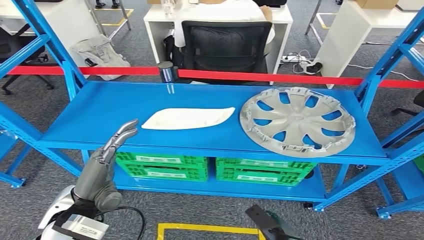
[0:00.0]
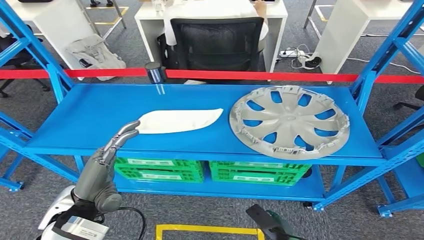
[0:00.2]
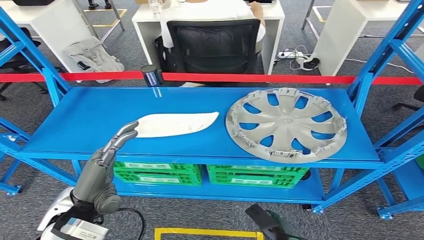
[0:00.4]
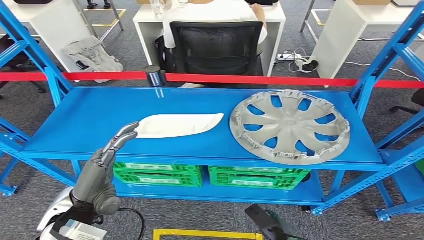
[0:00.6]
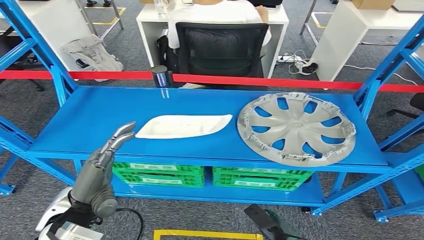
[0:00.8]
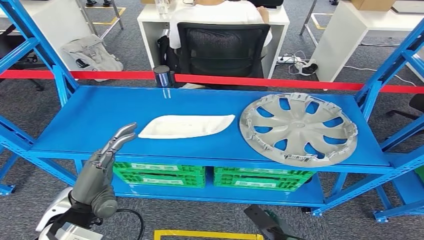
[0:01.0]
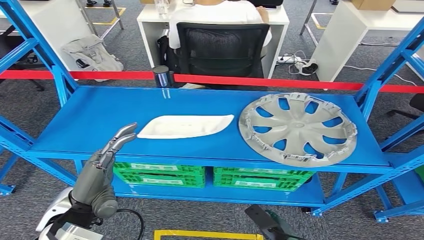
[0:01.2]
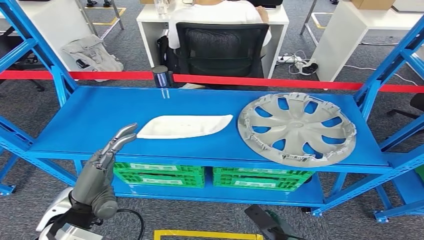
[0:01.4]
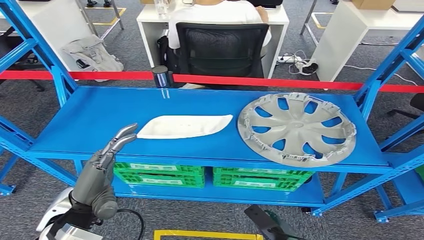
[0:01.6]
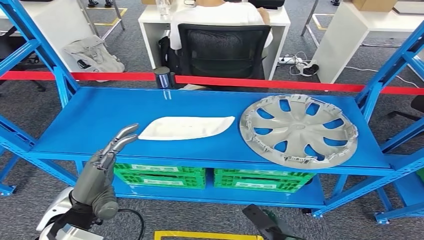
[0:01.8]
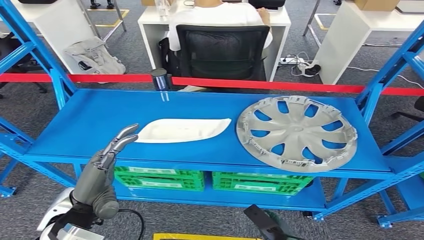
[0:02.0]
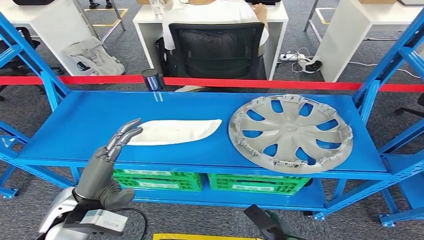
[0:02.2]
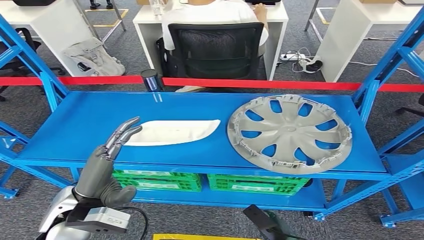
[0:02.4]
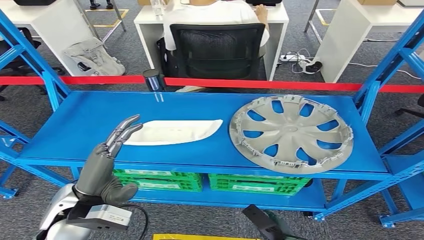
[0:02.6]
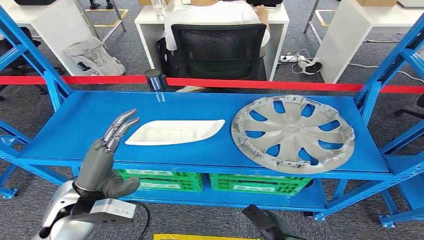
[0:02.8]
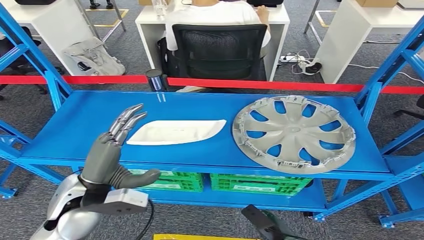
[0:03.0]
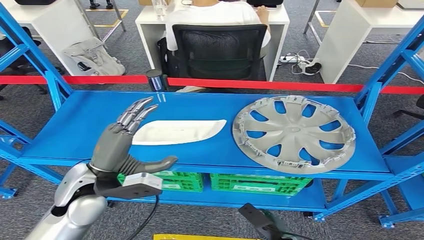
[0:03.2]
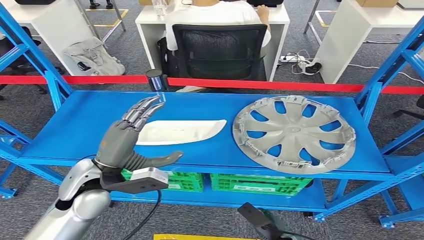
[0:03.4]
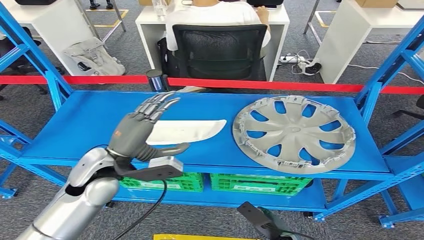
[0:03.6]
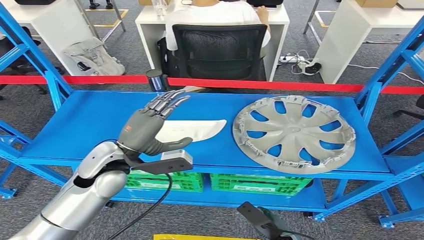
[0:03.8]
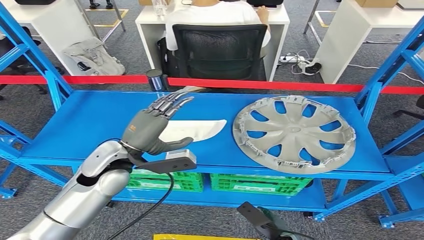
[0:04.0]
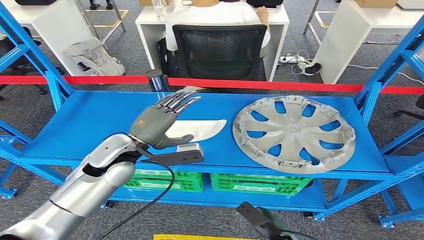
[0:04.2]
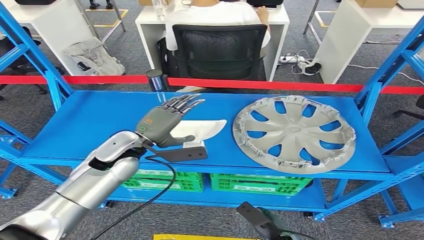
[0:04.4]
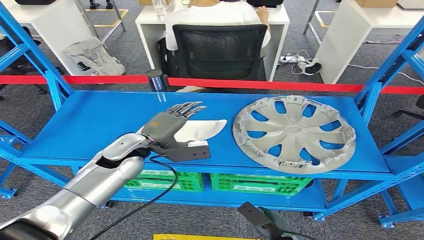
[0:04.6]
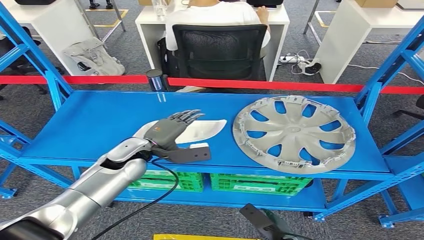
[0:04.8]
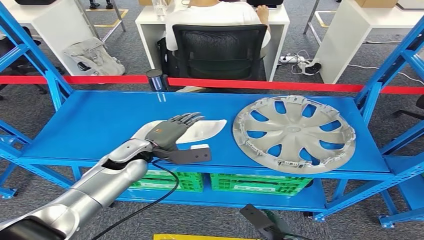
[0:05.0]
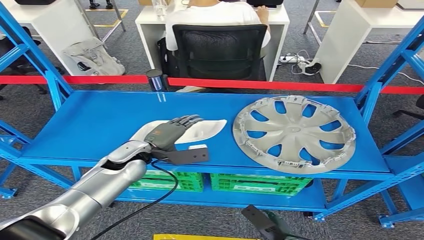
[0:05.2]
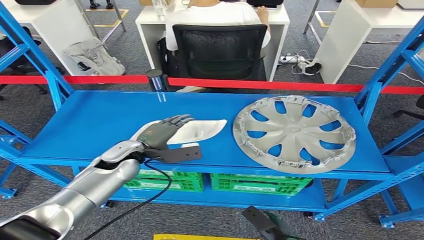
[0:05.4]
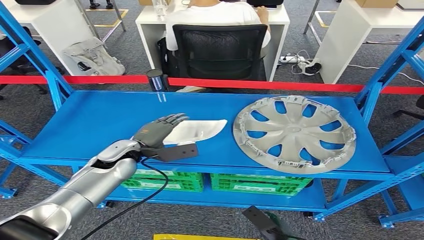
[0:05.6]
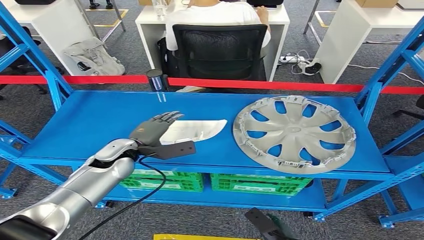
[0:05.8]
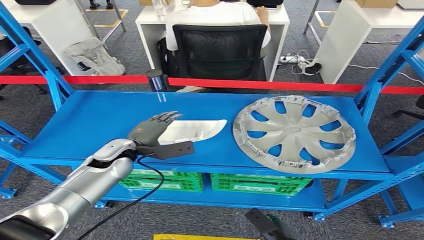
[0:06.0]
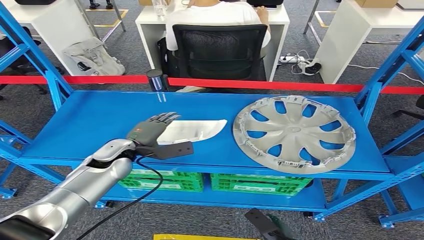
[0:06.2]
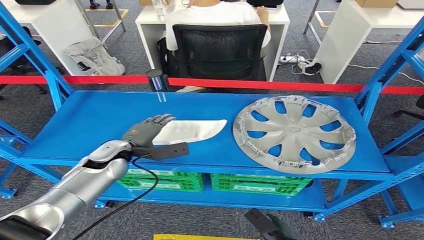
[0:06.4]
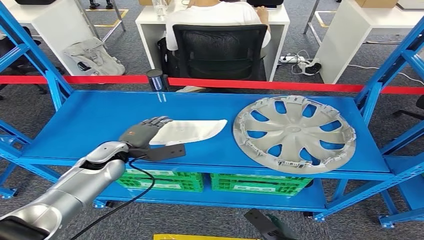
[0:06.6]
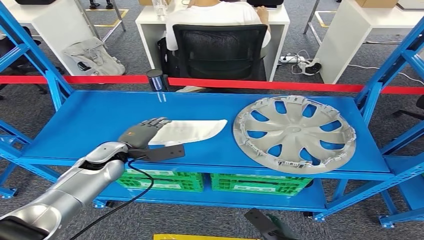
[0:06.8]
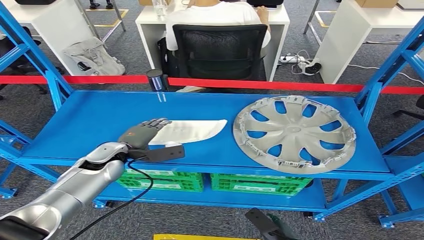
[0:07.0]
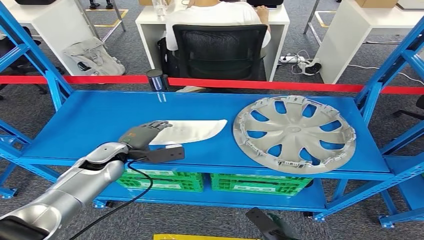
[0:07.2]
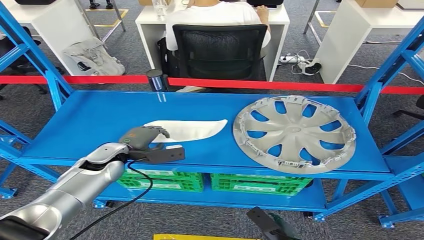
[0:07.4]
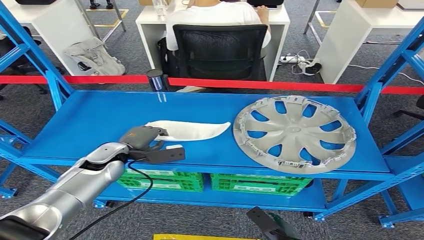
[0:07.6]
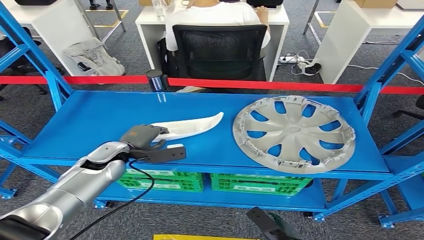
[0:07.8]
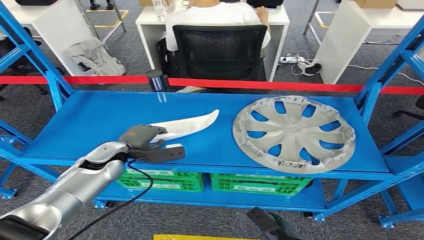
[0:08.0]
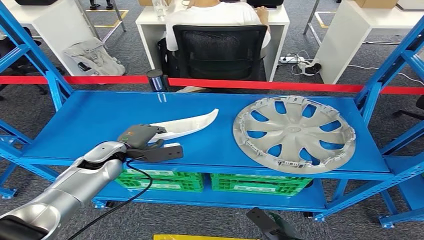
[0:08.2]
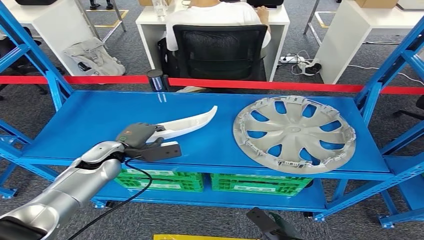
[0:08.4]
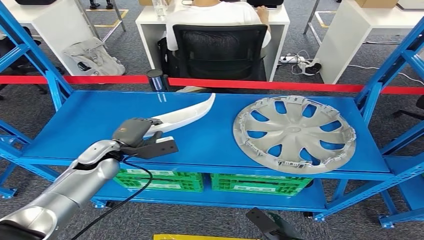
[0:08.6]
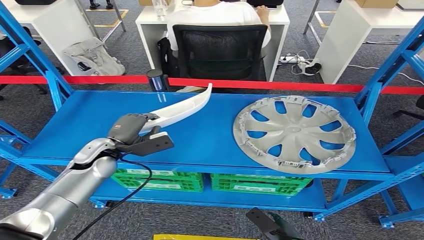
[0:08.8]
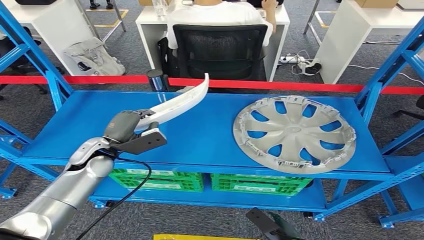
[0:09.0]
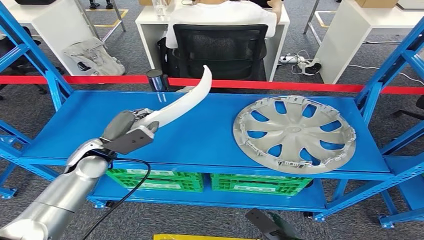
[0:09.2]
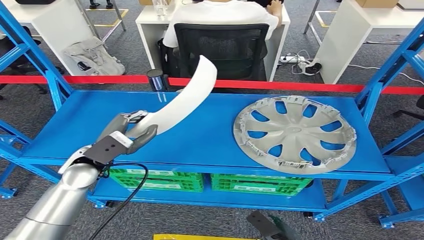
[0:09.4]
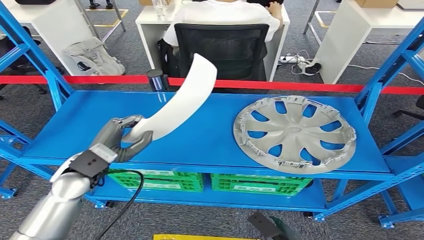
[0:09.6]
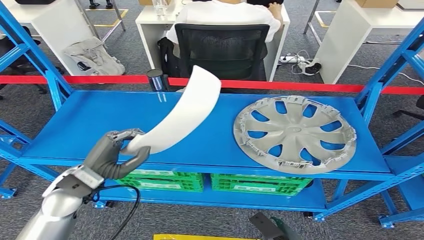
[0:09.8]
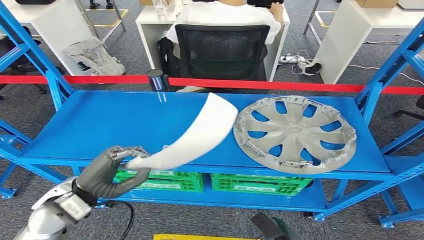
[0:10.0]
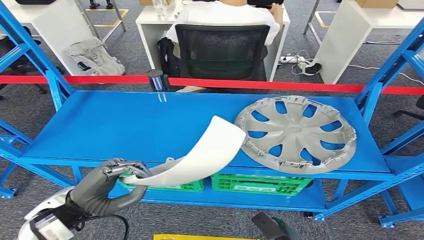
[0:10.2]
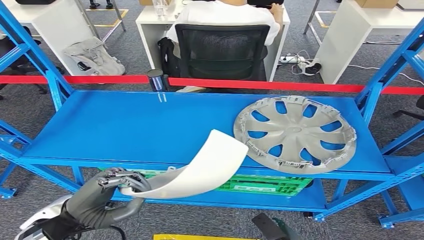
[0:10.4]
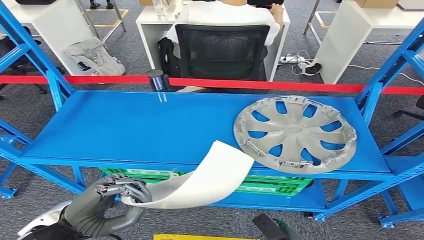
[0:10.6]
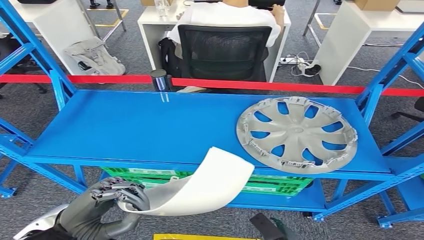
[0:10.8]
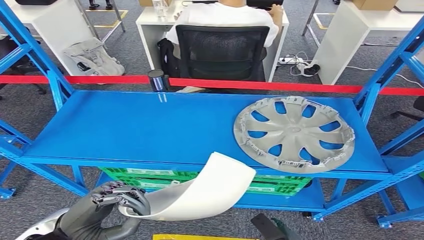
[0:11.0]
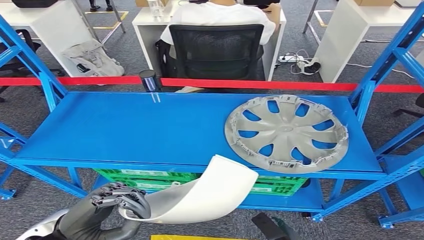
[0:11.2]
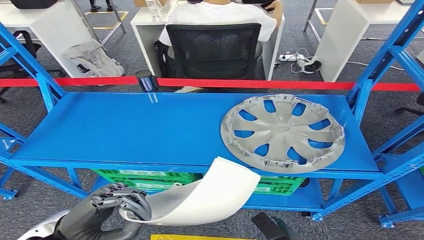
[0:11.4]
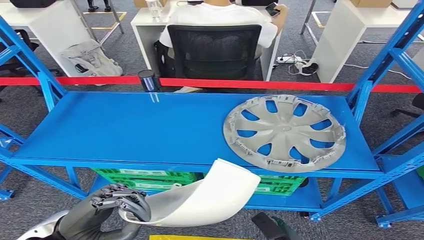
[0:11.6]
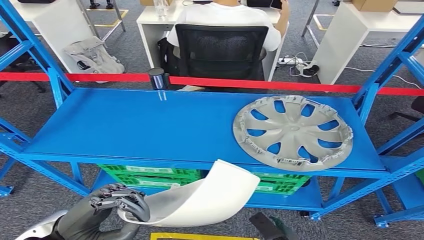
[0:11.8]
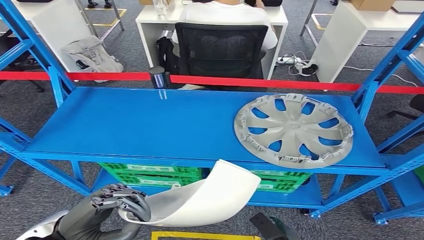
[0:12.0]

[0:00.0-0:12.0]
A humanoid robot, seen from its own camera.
Step, 0:00.0 to 0:09.6: Take small components from the rack.
0:03.0 to 0:04.4: The left hand goes about 10 cm forward.
0:04.4 to 0:06.0: The left hand moves downward, approximately 5 cm.
0:06.0 to 0:07.6: The hands move only a little.
0:09.0 to 0:10.4: The left hand is displaced backward by about 15 cm.

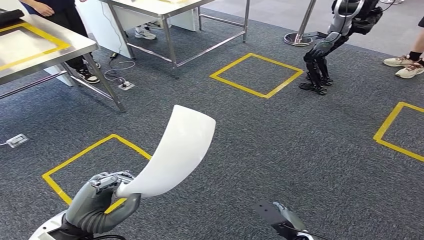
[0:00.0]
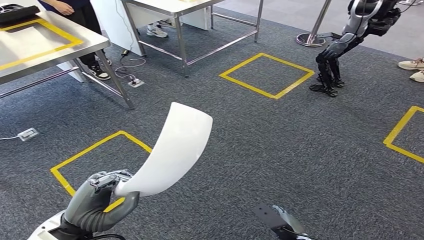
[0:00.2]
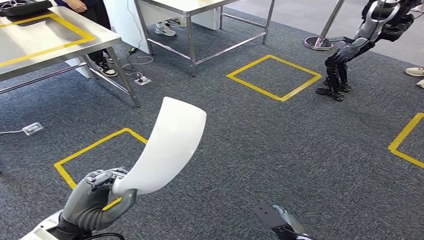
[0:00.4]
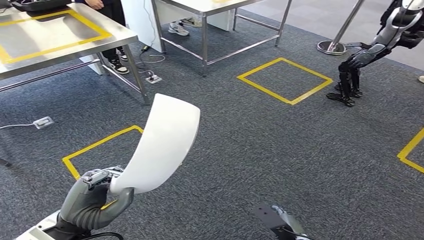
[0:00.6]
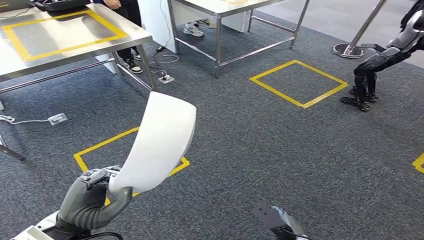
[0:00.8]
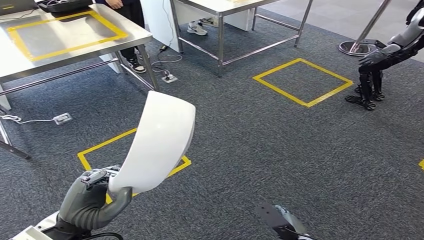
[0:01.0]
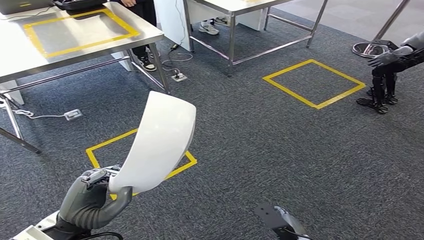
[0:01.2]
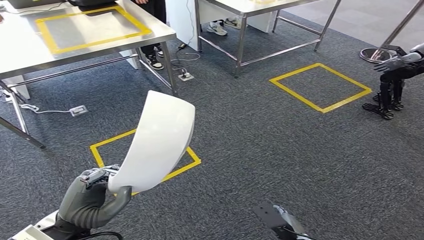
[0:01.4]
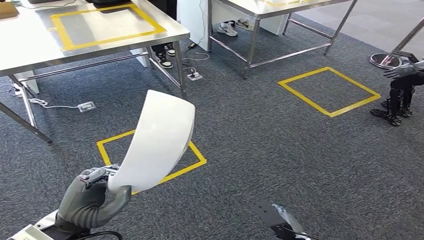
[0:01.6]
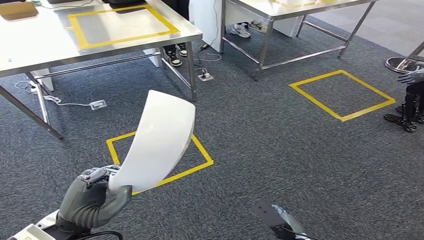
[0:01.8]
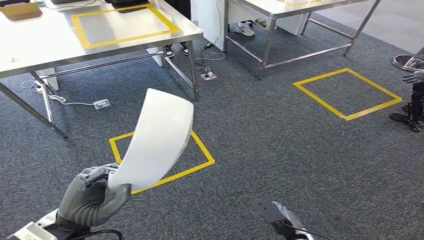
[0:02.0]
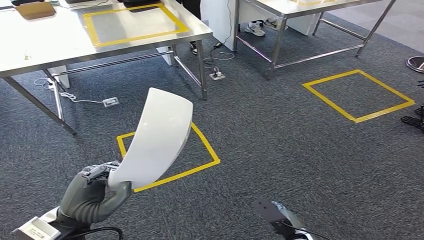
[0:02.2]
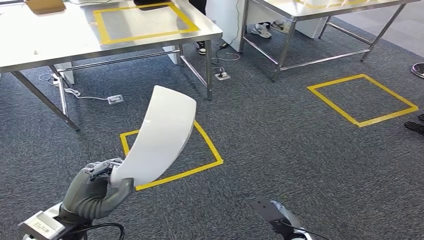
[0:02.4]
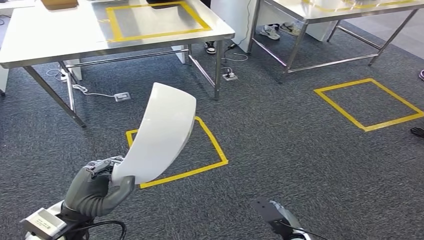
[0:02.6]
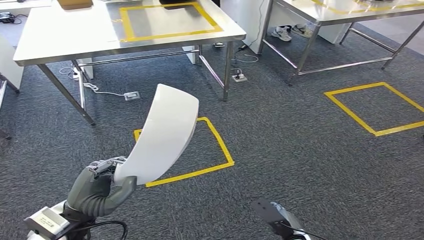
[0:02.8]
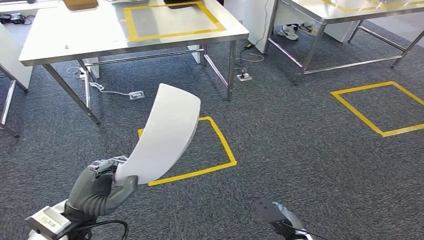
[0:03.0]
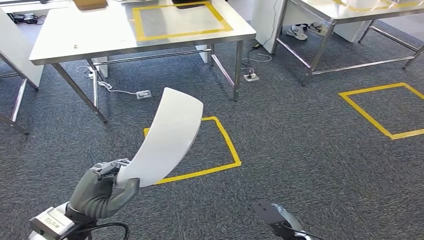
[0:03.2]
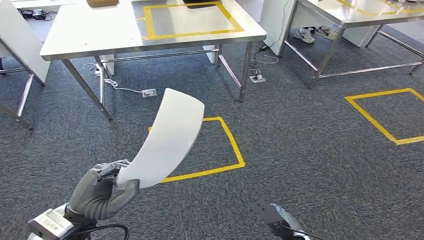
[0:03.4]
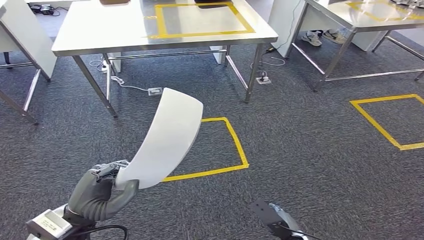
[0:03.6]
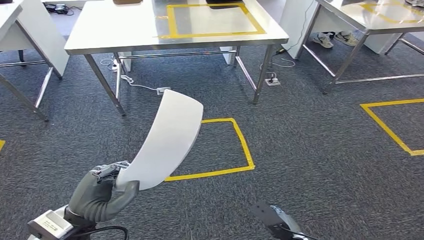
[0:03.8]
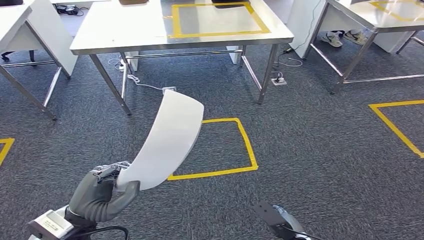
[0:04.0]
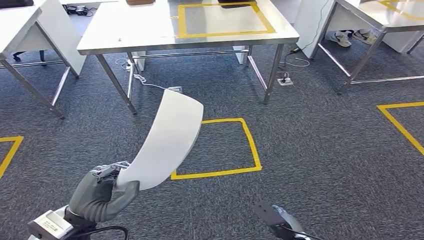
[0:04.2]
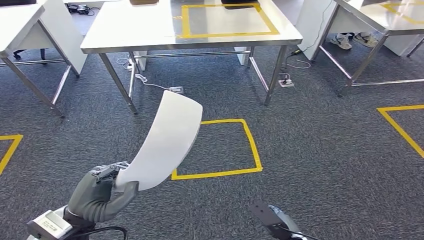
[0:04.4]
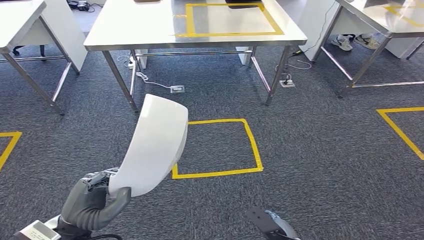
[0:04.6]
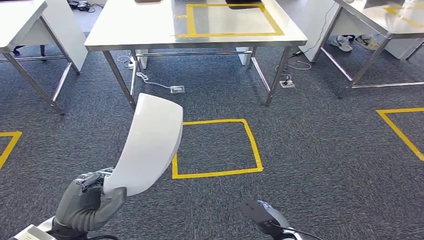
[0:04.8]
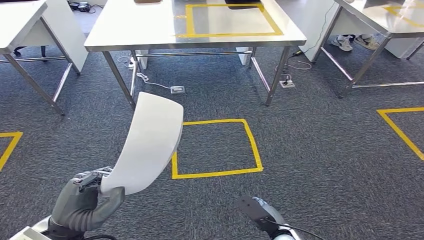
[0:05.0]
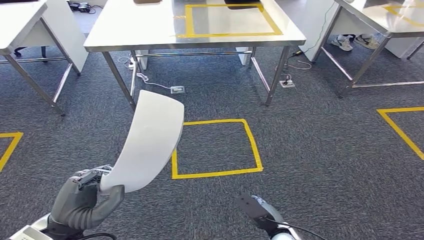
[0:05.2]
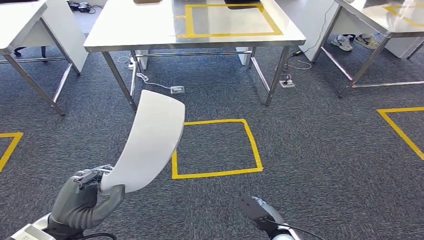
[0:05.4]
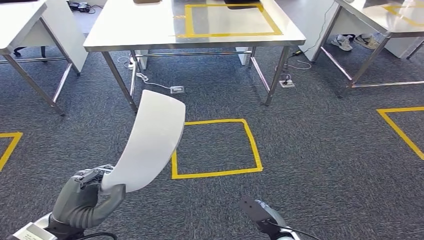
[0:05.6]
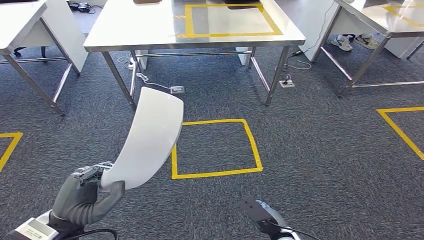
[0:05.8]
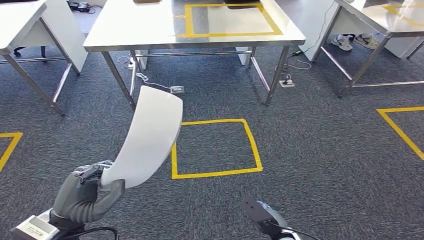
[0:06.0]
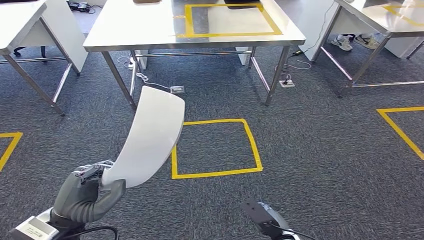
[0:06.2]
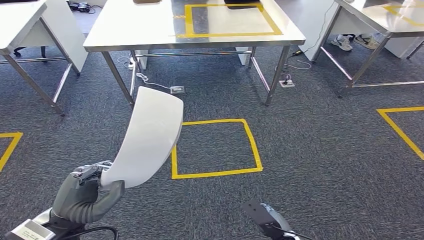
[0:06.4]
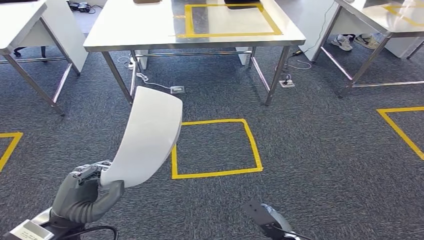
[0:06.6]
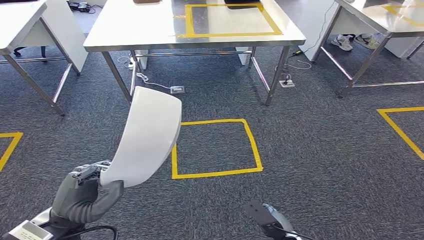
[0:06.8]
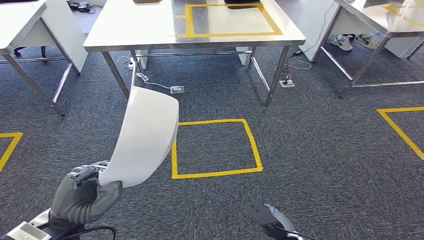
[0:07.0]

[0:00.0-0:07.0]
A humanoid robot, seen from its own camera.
0:04.2 to 0:07.0: There are only small adjustments of the hands.
